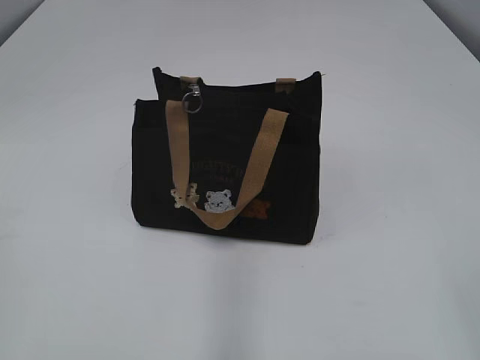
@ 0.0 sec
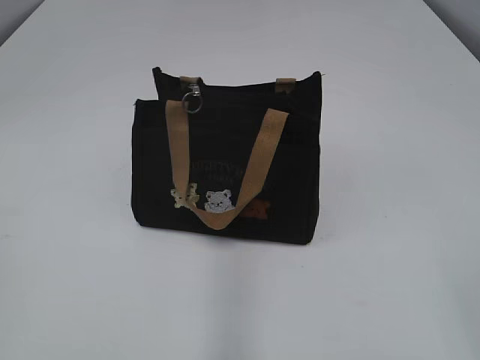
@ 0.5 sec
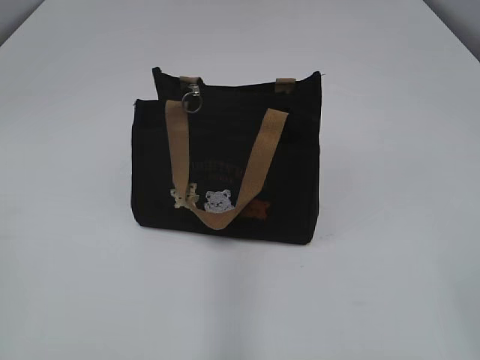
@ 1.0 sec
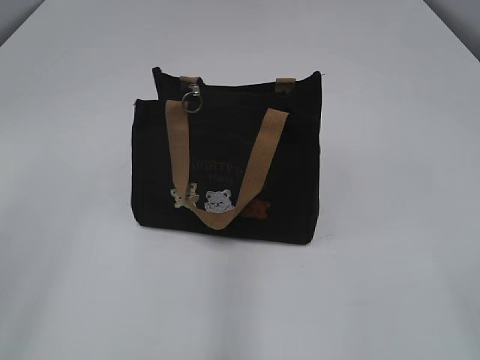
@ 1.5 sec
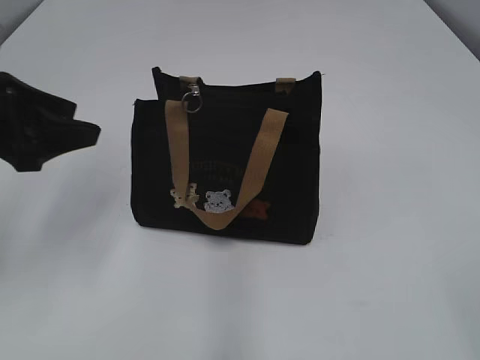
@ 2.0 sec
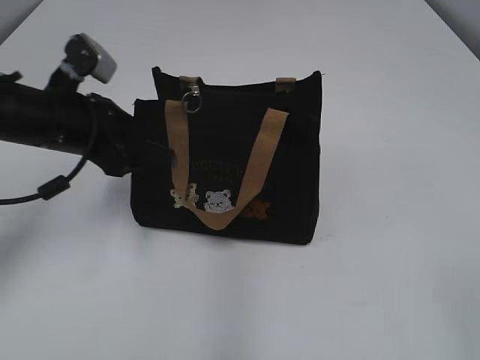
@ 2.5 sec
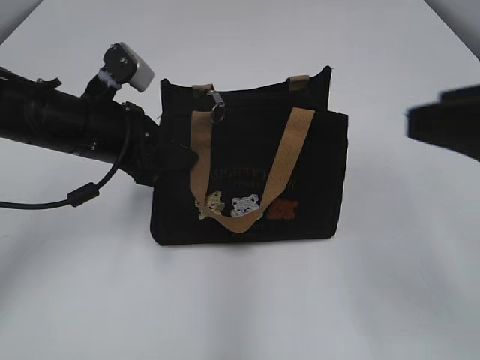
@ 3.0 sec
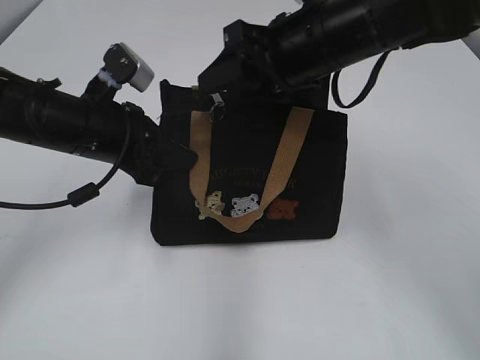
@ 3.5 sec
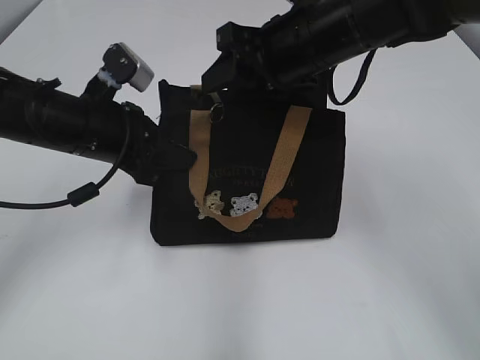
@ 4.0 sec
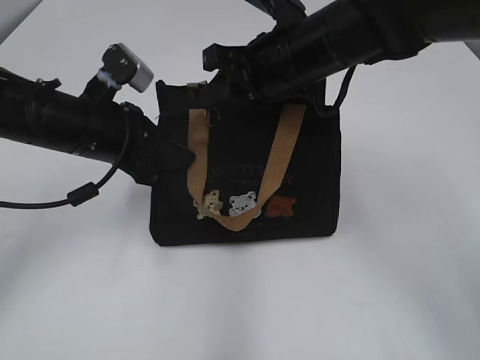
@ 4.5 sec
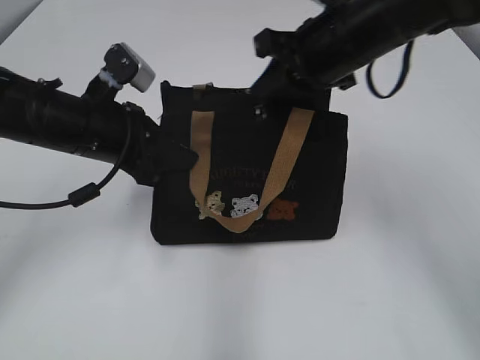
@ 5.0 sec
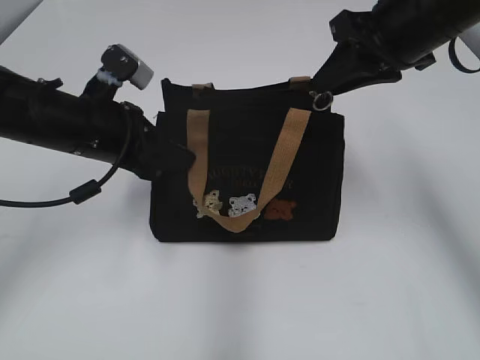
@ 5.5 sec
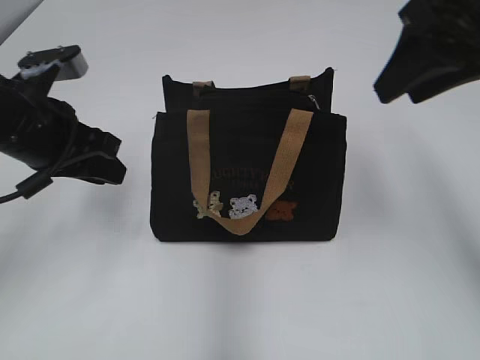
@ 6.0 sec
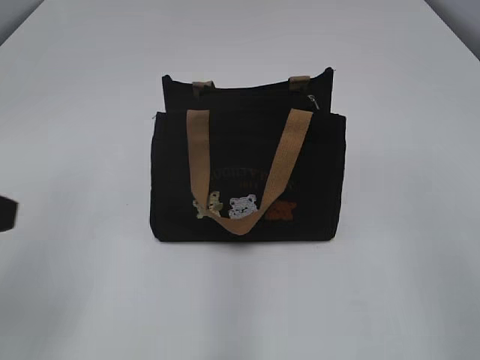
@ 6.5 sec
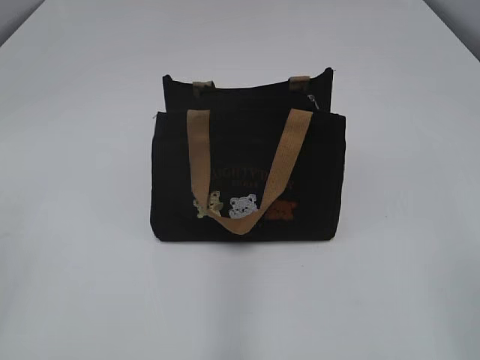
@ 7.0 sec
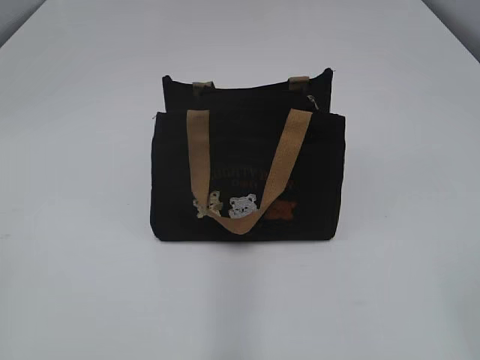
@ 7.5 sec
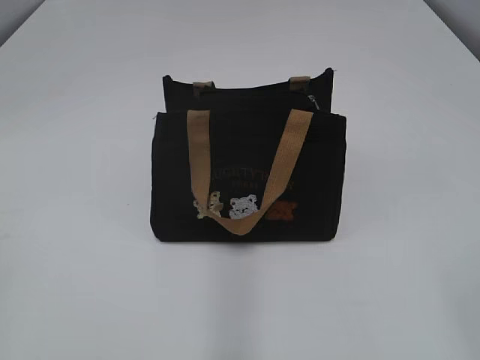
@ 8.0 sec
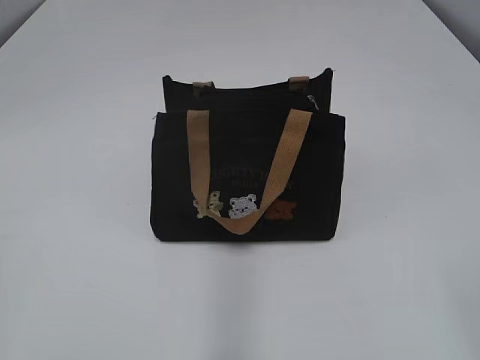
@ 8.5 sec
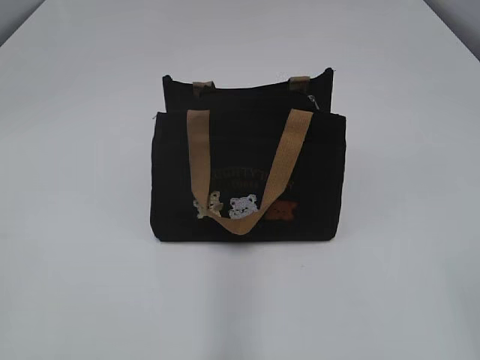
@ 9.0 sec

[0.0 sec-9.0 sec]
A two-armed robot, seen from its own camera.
Step, 0.0 sec to 5.0 sec: Zip up the bag with your right hand.
2.0 sec to 4.5 sec: The left gripper shifts roughly 15 cm to the right, downward and forward, and closes its fingers; the right gripper goes approximately 40 cm forward and to the left, and closes its fingers.
4.5 sec to 7.0 sec: The left gripper goes some 35 cm backward, to the left and upward. The right gripper heads backward and to the right, covering about 40 cm, and opens its fingers.

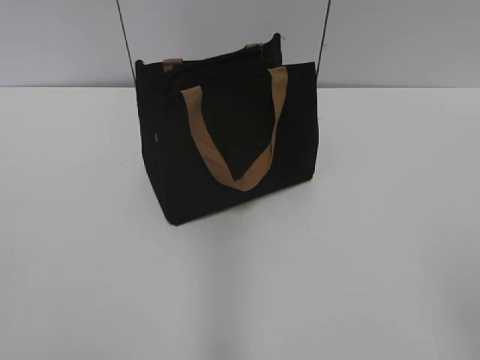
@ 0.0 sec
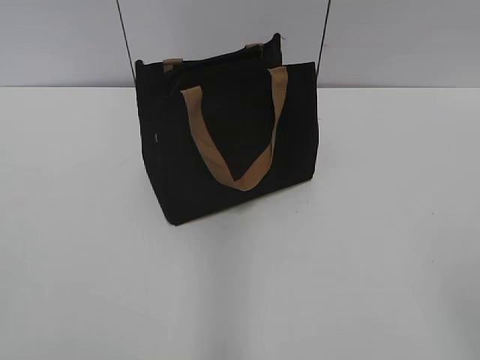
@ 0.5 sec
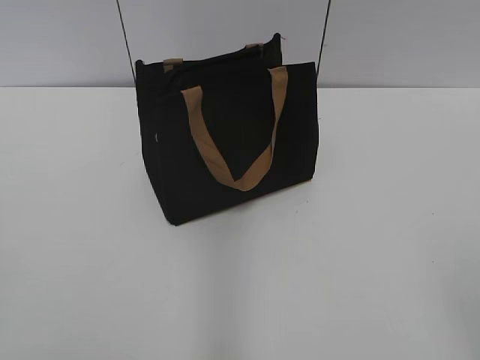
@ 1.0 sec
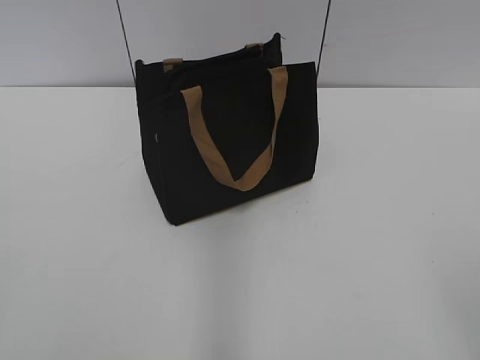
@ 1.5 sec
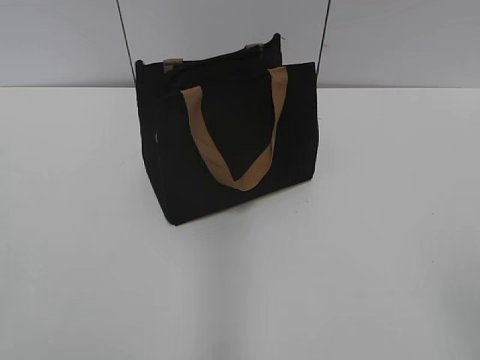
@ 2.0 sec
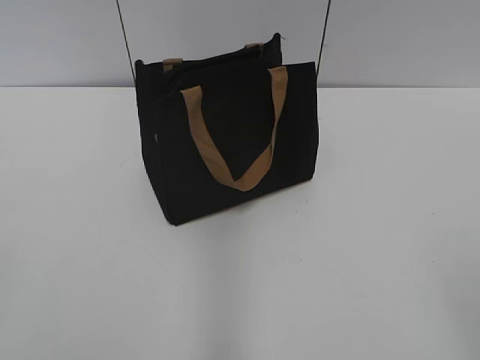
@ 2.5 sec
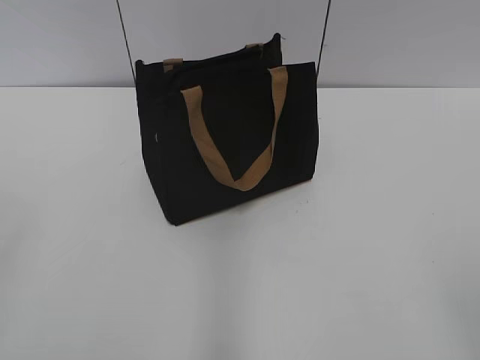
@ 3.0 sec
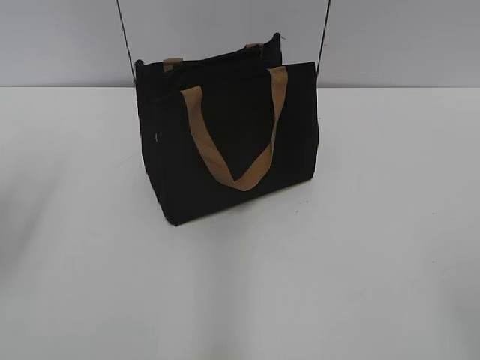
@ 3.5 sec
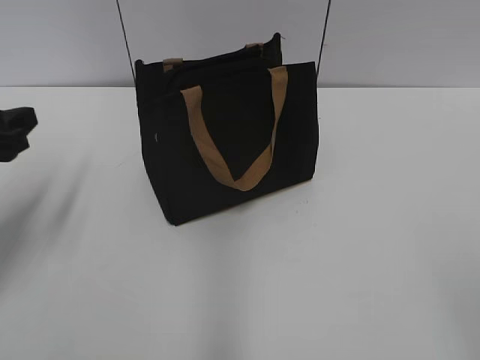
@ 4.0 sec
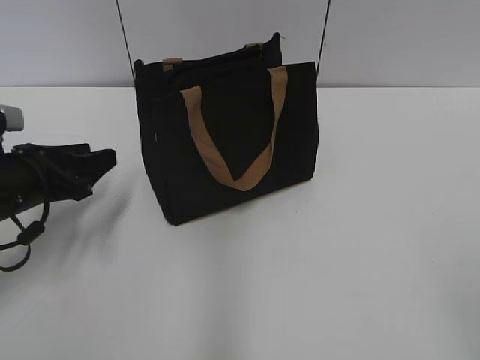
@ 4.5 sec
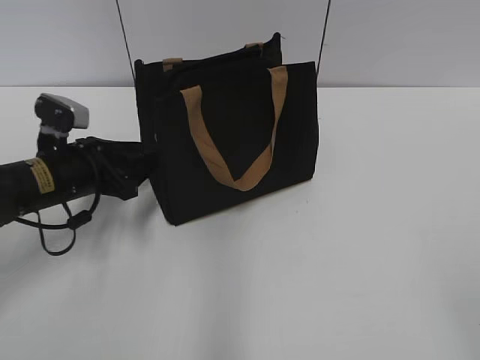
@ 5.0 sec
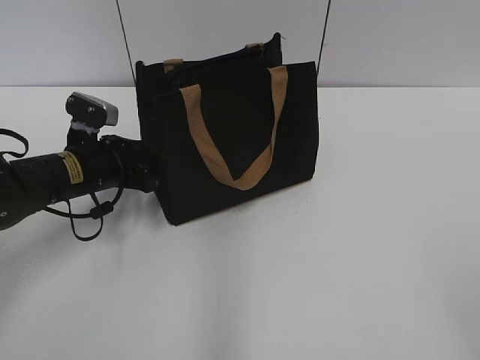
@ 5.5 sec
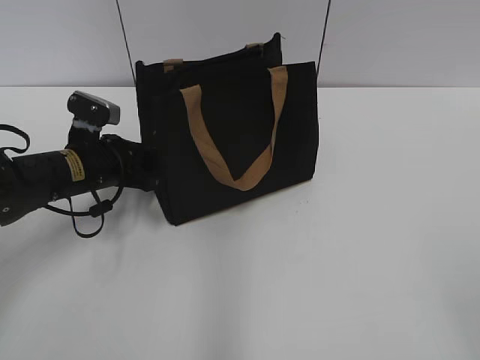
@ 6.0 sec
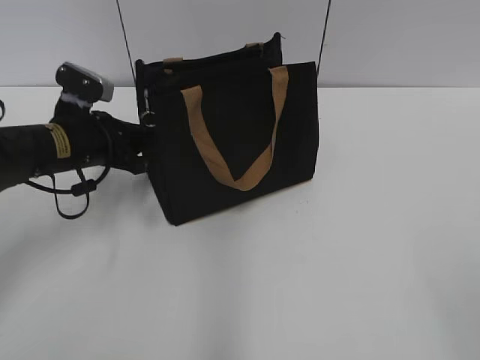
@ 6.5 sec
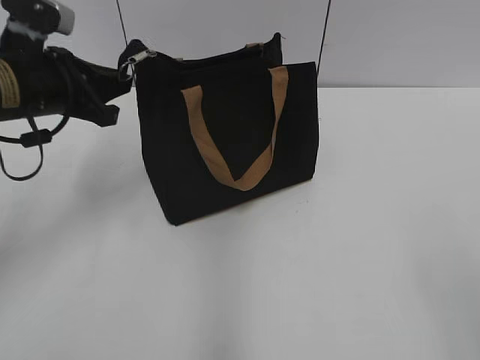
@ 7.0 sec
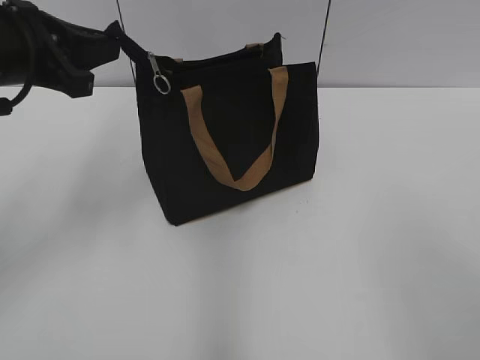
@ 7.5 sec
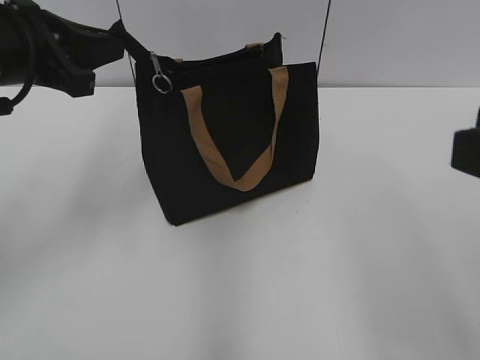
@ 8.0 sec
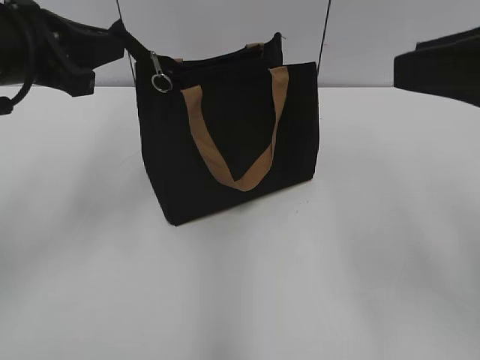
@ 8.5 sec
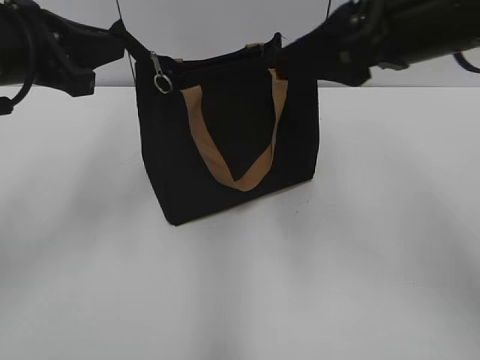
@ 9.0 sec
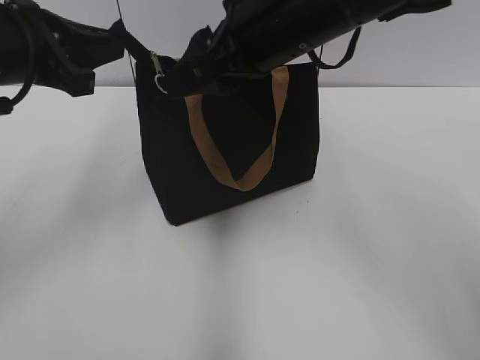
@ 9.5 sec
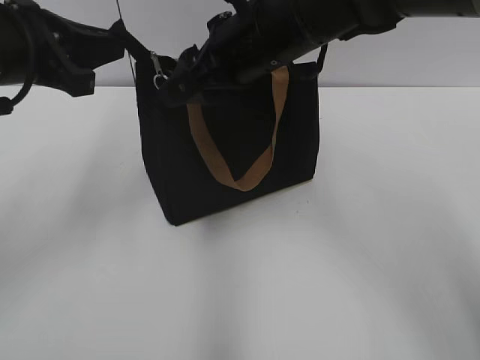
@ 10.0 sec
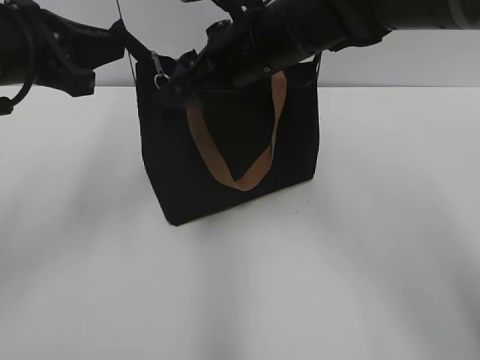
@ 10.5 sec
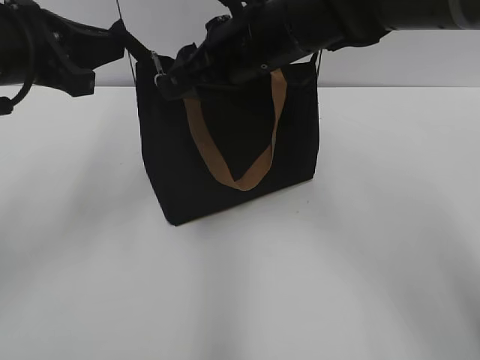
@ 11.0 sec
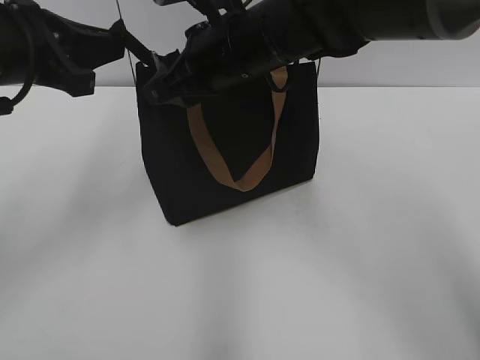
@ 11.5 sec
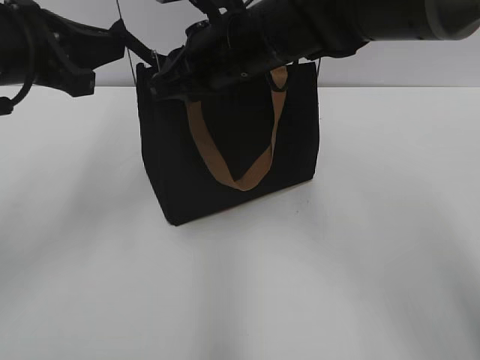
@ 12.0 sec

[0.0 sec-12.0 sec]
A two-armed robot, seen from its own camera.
2.0 sec to 4.0 sec: The left gripper travels forward by some 25 cm, and opens its fingers.
4.0 sec to 6.0 sec: The left gripper shifts about 15 cm downward, forward and to the right, and closes its fingers.
6.0 sec to 8.0 sec: The right gripper travels forward and upward by roughly 10 cm; the left gripper is displaced upward by approximately 20 cm.
8.0 sec to 10.0 sec: The right gripper travels forward and to the left by some 30 cm.
10.0 sec to 12.0 sec: The right gripper closes.

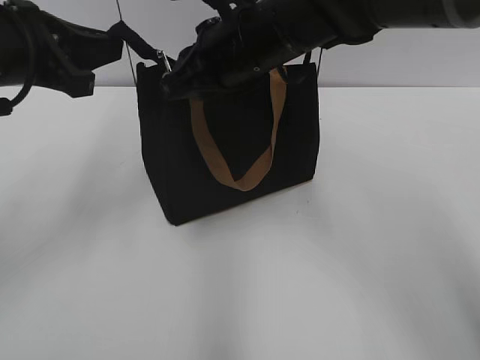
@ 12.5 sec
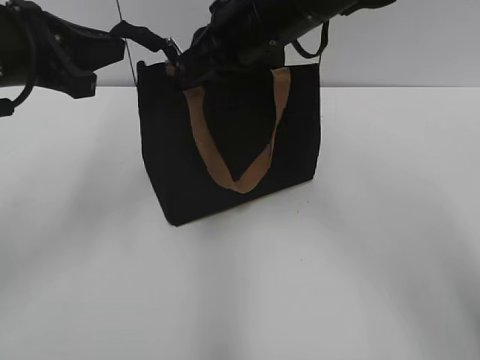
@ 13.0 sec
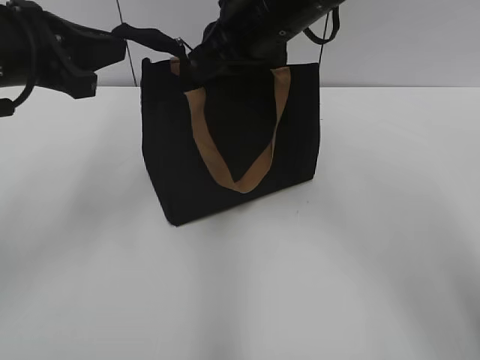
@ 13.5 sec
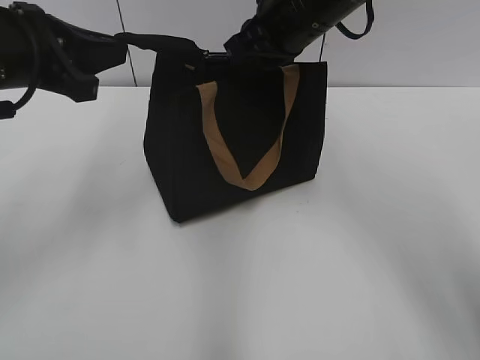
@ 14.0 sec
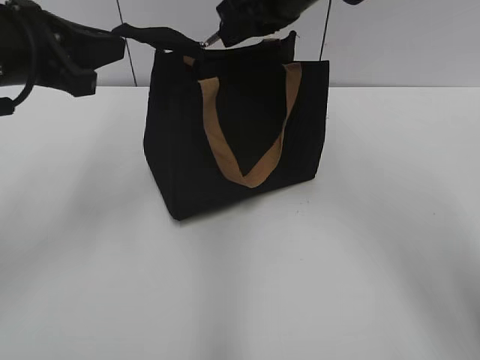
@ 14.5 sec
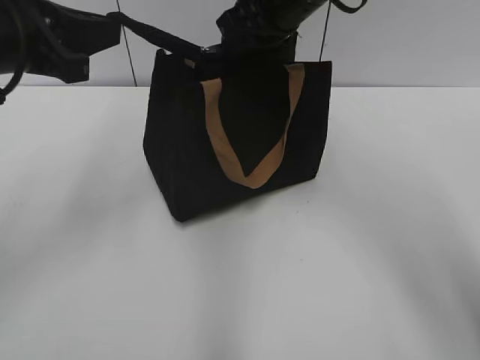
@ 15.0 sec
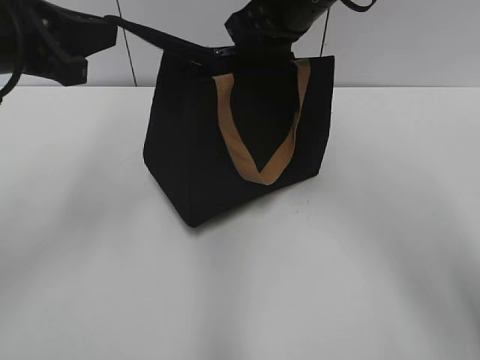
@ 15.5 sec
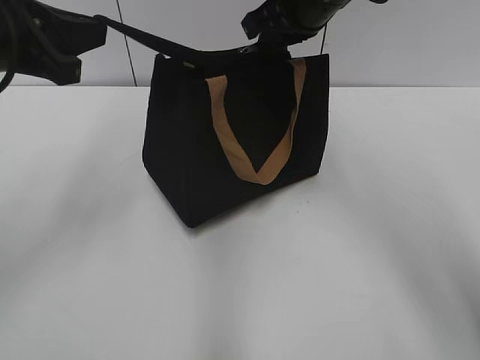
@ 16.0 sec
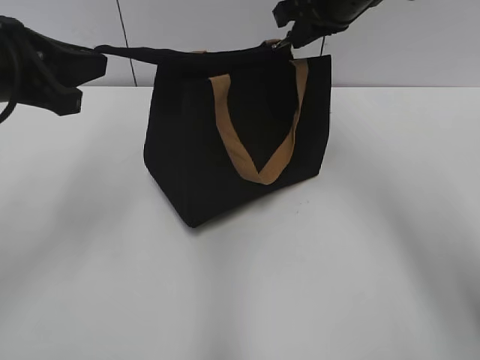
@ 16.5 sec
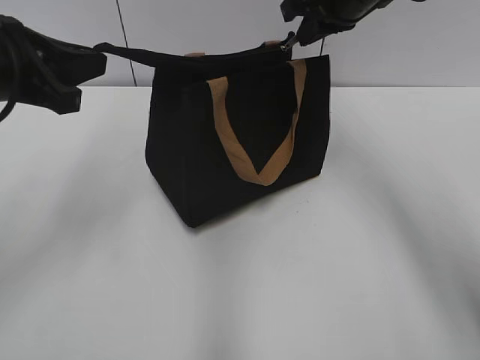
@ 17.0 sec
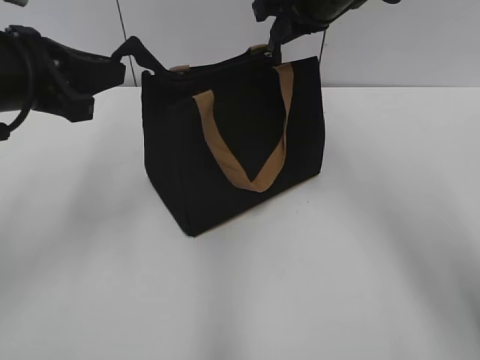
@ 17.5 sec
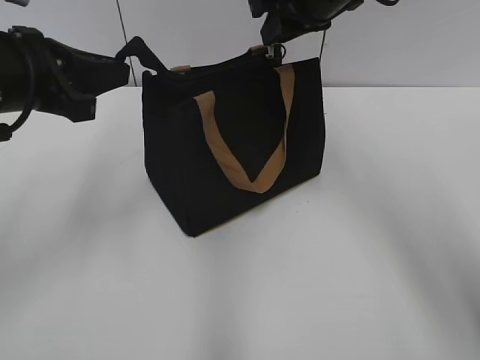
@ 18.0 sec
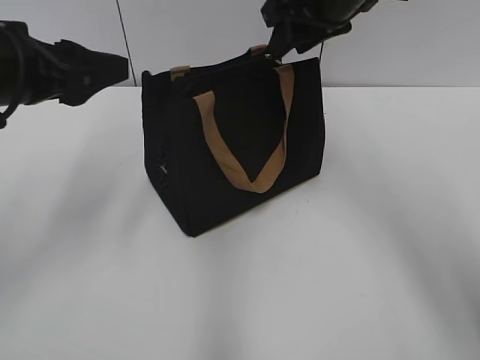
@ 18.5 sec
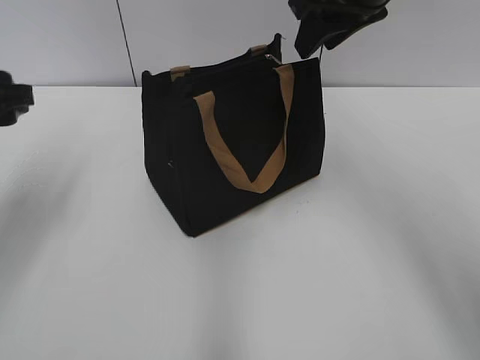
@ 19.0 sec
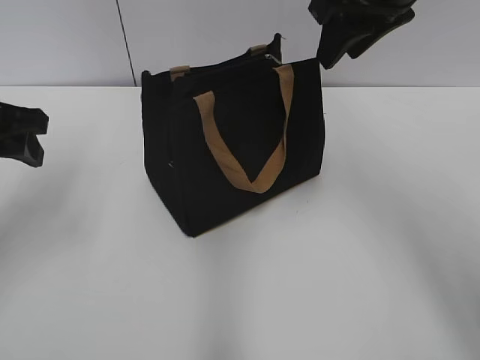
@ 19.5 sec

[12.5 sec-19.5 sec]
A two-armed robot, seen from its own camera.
Step, 12.5 sec to 18.0 sec: Zip up the bag with your right hand.
12.5 sec to 14.5 sec: The right gripper moves upward, some 5 cm.
14.5 sec to 16.0 sec: The grippers make only small movements.
16.0 sec to 17.5 sec: The grippers stay close to where they were, moving slightly.
17.5 sec to 19.5 sec: The right gripper moves backward, roughly 5 cm, and opens up. Meanwhile the left gripper ends up about 5 cm from where it was, and opens up.
